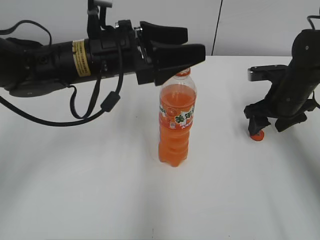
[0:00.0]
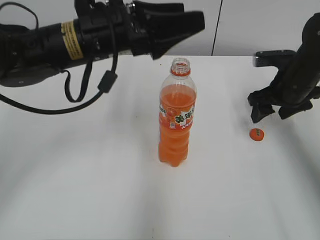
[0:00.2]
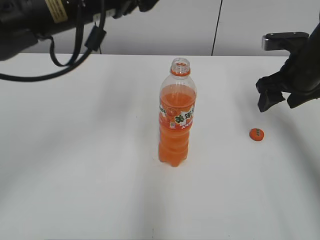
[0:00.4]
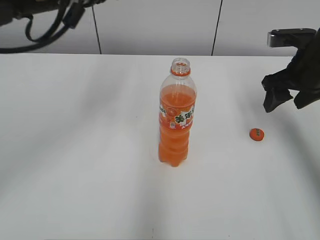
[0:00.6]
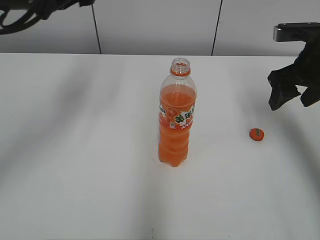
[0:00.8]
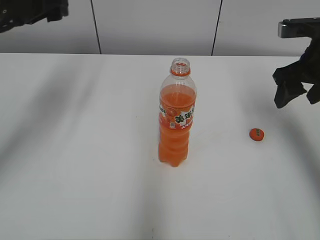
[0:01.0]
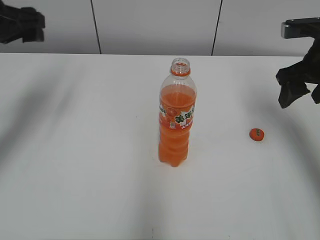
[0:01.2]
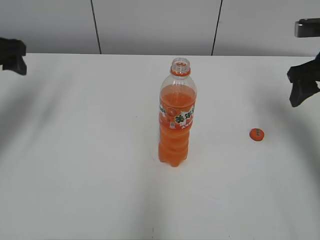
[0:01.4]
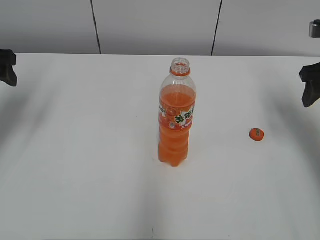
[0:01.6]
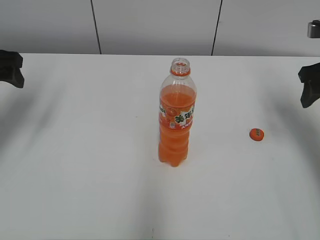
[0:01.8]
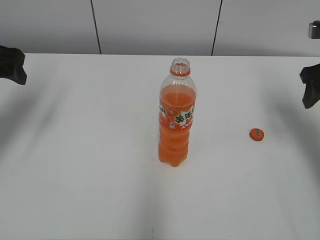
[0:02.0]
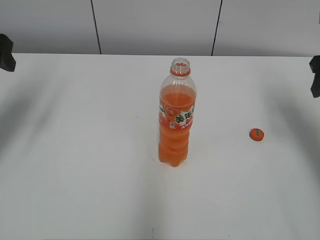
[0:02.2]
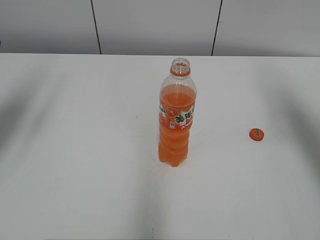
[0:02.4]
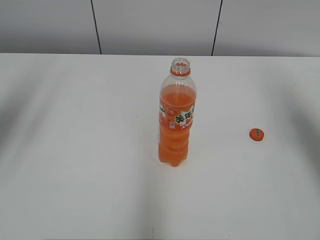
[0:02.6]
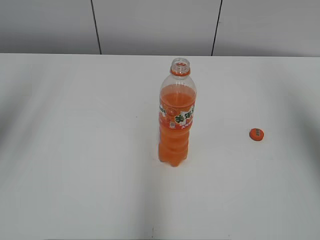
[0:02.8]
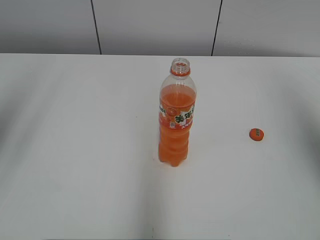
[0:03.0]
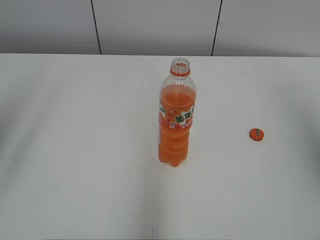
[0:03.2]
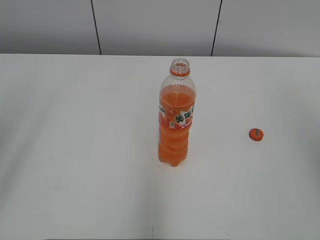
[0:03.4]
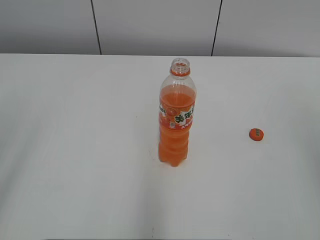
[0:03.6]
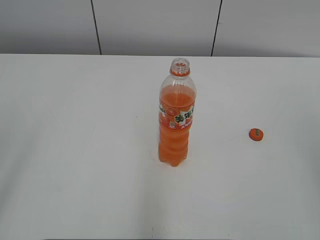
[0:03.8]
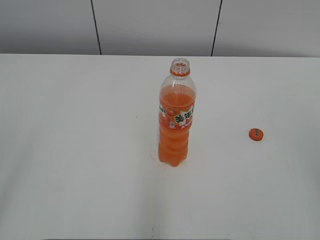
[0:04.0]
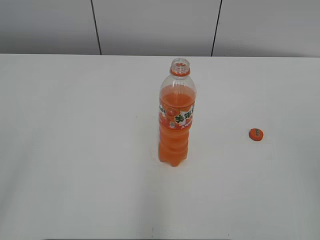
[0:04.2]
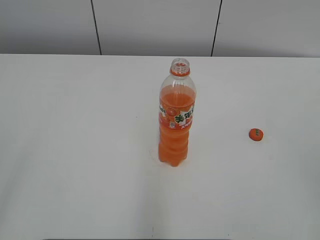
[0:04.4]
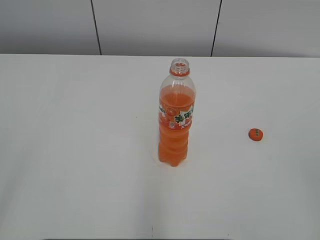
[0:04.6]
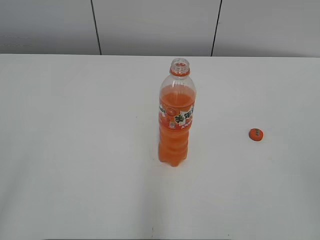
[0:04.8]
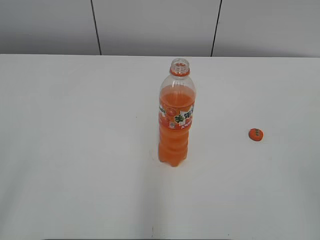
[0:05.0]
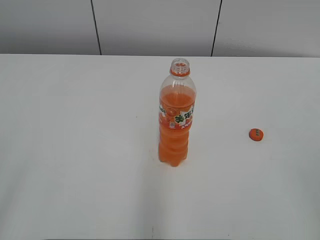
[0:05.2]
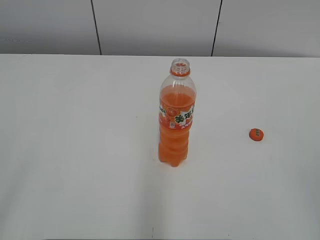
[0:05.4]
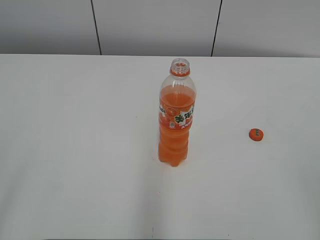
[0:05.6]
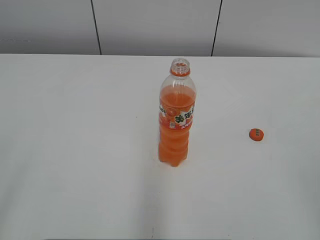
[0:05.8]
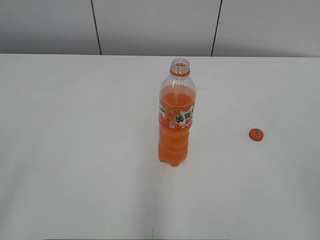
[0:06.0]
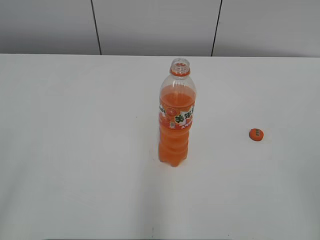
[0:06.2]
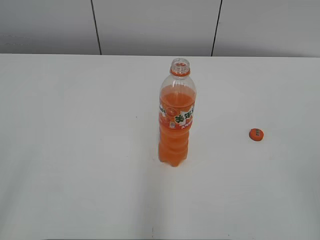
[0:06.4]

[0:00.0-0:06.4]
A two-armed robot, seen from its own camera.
0:00.0 to 0:01.6: The right gripper moves upward, roughly 10 cm, while the left gripper travels to the left by approximately 25 cm.
0:01.6 to 0:03.2: The grippers both shift backward and upward by some 25 cm.
0:03.2 to 0:04.8: The right gripper shifts about 20 cm backward and downward.

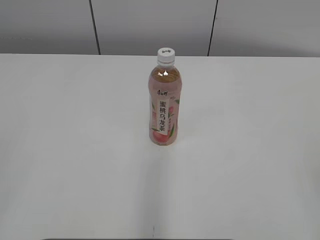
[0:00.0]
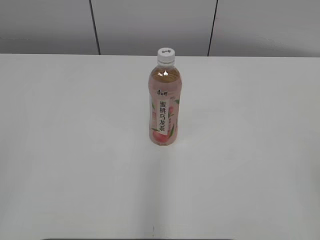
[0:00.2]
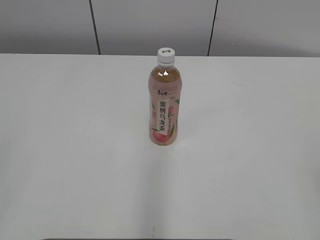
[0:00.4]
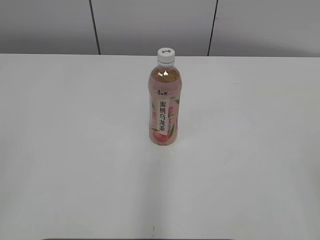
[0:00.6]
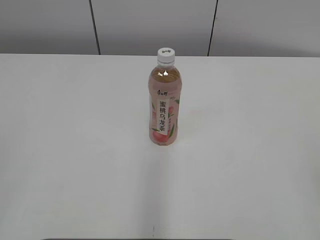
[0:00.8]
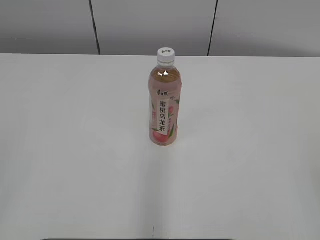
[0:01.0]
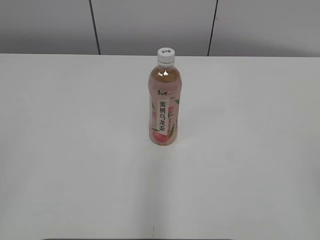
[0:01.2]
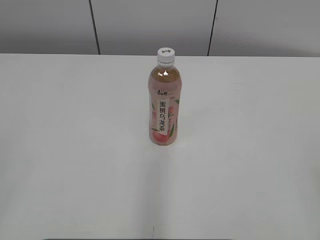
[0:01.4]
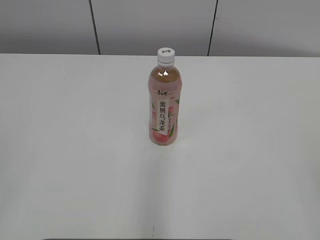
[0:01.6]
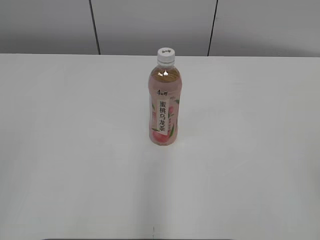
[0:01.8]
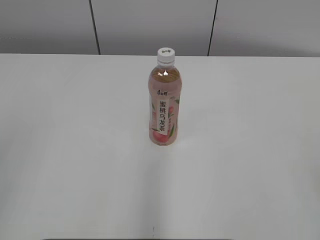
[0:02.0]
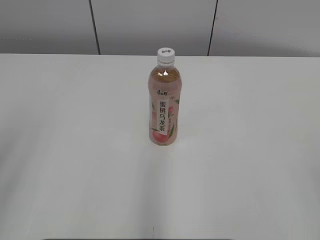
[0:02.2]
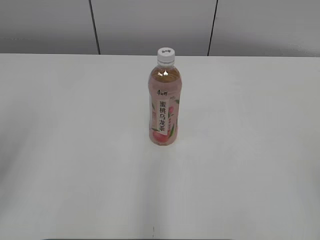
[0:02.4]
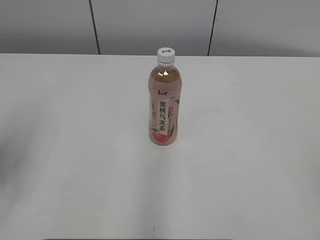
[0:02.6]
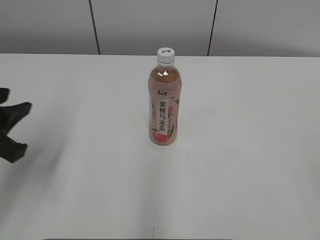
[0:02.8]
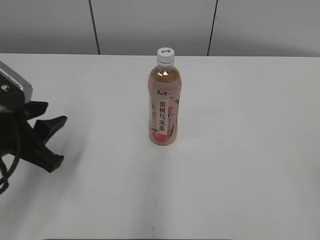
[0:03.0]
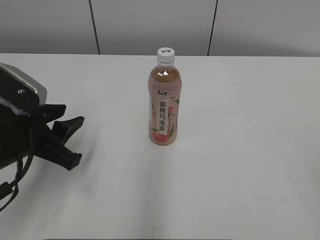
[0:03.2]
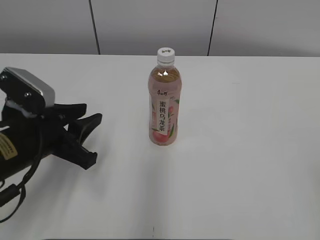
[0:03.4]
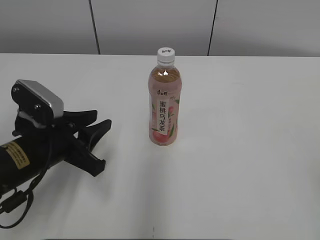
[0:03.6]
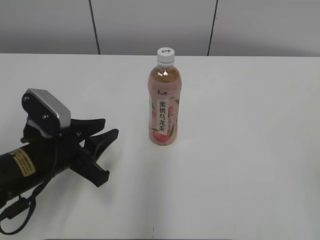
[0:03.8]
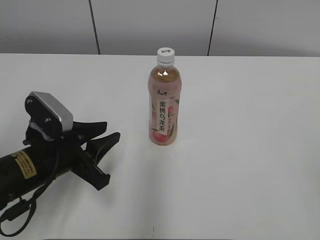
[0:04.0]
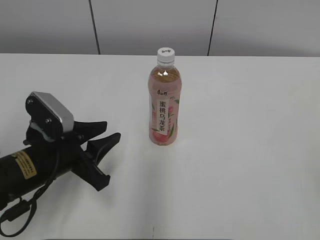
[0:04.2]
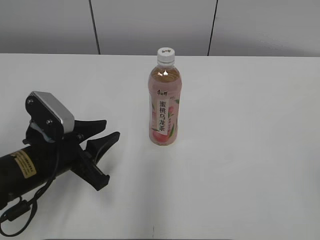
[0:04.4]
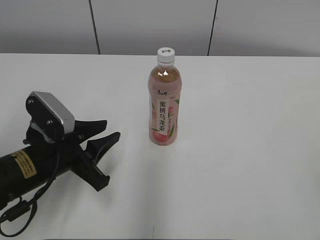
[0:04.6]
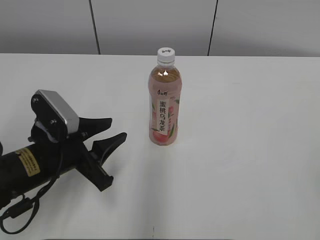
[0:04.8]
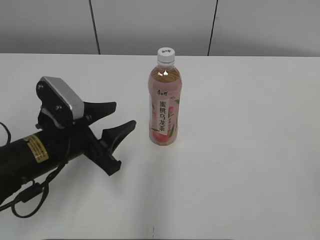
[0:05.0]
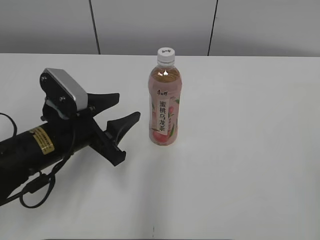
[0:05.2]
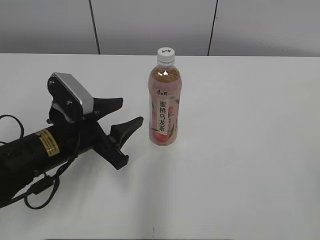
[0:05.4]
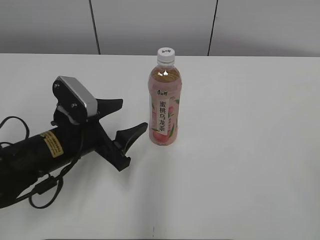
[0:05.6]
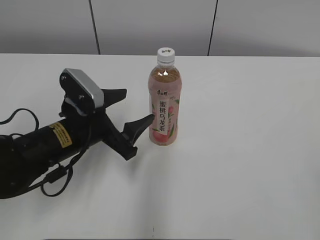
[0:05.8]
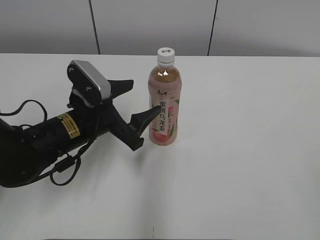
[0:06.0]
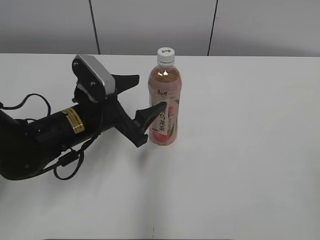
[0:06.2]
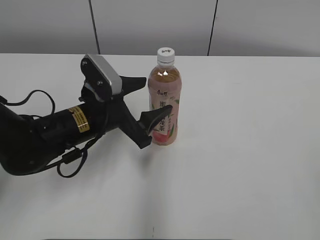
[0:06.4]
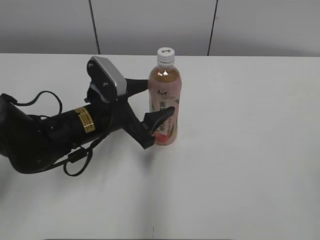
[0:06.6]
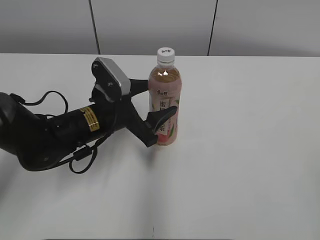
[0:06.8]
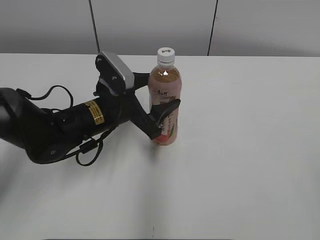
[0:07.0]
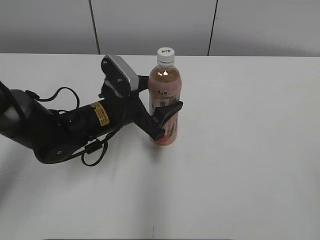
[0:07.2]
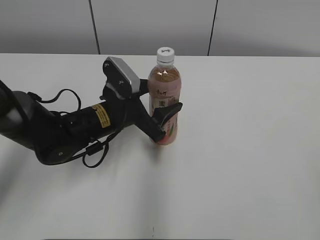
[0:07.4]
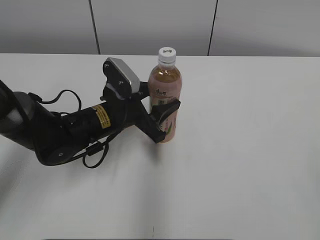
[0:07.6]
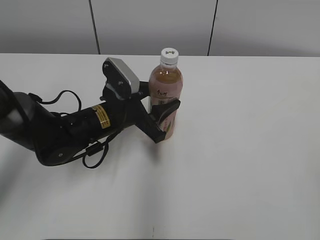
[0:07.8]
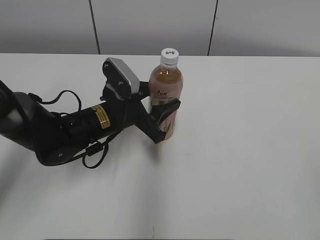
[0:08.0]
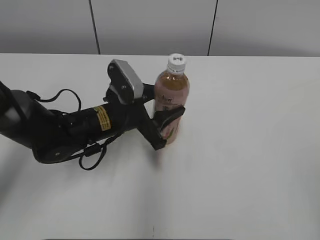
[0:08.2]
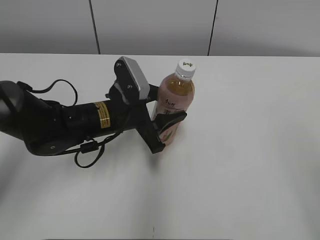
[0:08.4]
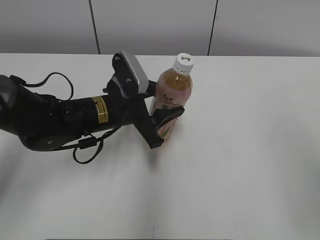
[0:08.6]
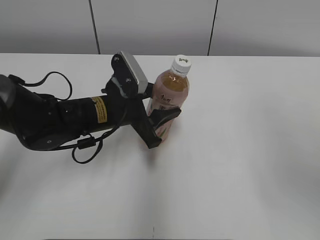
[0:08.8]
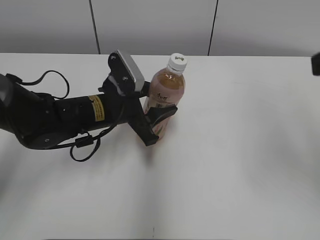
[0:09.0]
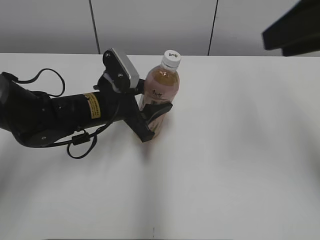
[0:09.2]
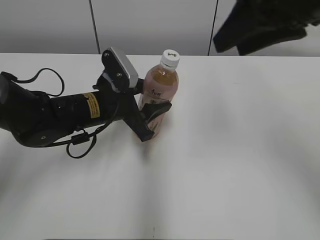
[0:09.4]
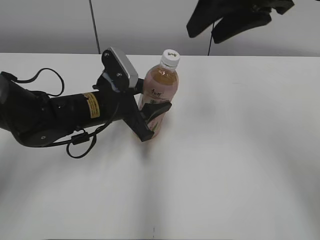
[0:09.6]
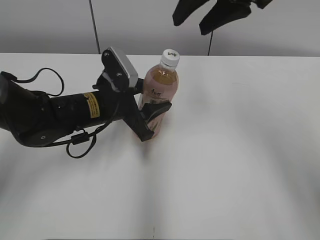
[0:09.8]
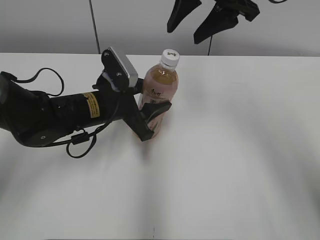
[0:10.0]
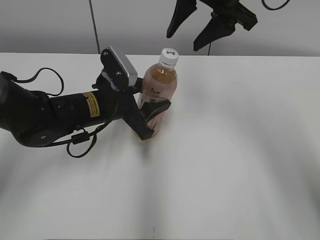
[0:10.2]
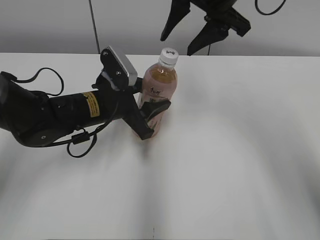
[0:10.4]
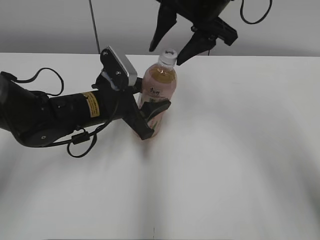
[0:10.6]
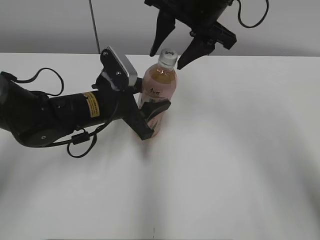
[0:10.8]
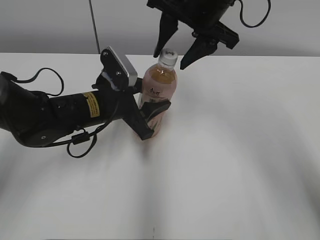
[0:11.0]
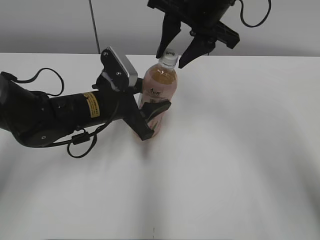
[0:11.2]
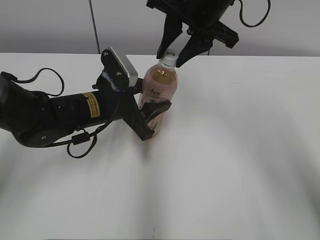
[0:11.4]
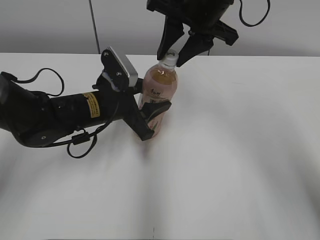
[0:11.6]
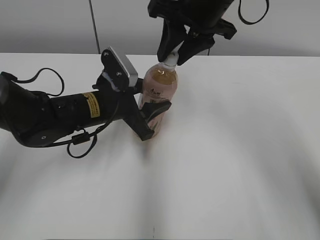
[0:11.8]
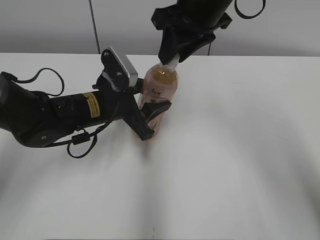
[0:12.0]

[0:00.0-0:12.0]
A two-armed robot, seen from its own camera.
Step, 0:00.0 to 0:07.4: Grab the Peach Oolong Tea with the left hand.
0:01.6 to 0:03.0: The left gripper goes about 25 cm forward, downward and to the right.
0:03.0 to 0:04.4: The left gripper moves downward, roughly 5 cm.
0:04.4 to 0:06.0: The left gripper goes about 5 cm forward, and opens its fingers.
0:06.0 to 0:07.6: The left gripper changes place by roughly 5 cm, and closes.
0:07.6 to 0:09.0: The right gripper shifts roughly 20 cm forward.
0:09.0 to 0:10.4: The right gripper shifts some 25 cm forward and to the left.
0:10.4 to 0:12.0: The right gripper closes.

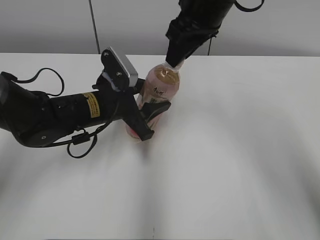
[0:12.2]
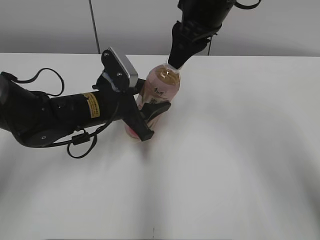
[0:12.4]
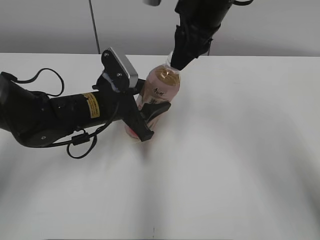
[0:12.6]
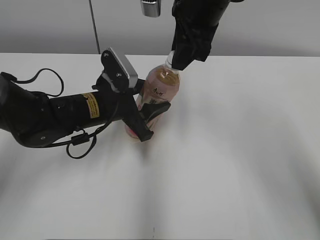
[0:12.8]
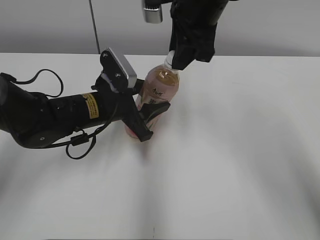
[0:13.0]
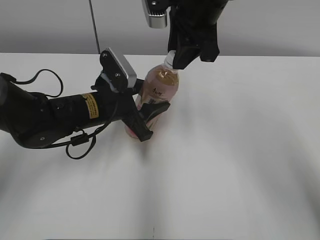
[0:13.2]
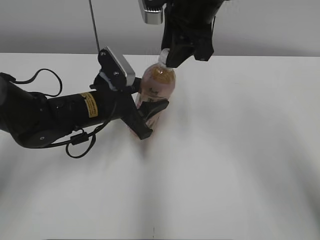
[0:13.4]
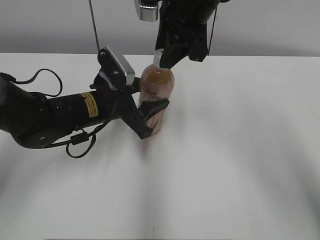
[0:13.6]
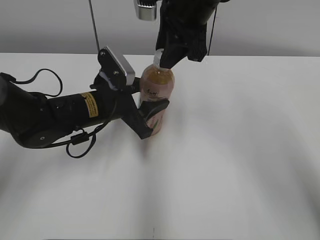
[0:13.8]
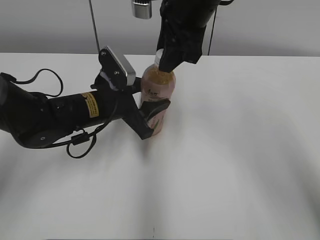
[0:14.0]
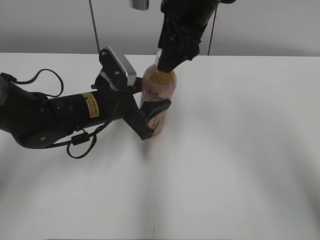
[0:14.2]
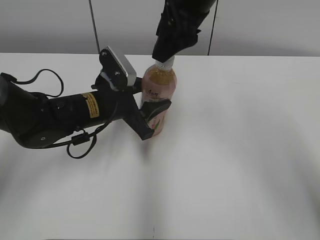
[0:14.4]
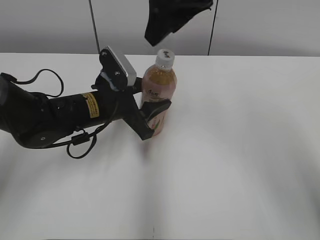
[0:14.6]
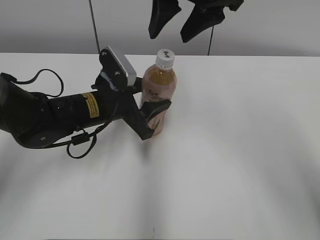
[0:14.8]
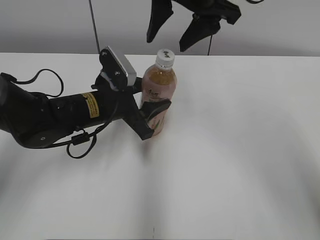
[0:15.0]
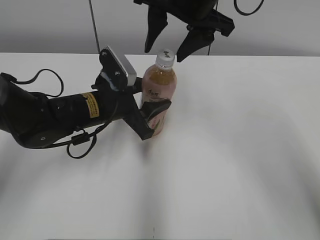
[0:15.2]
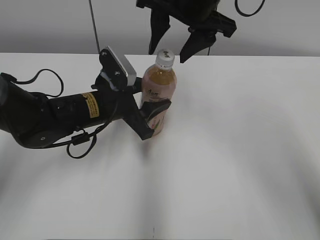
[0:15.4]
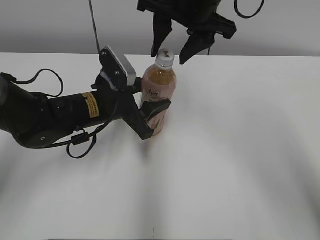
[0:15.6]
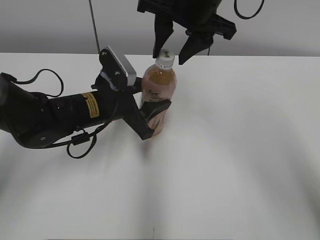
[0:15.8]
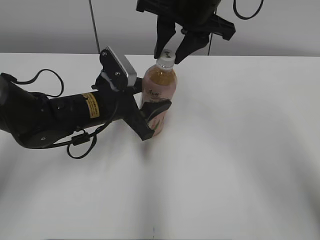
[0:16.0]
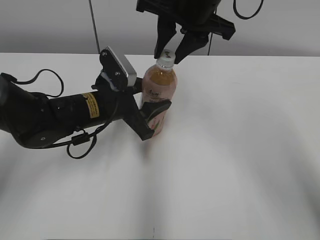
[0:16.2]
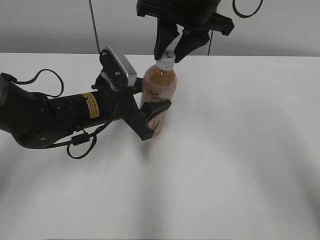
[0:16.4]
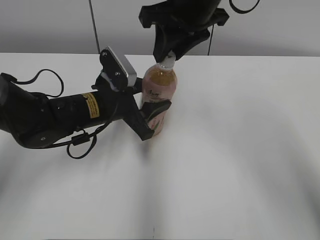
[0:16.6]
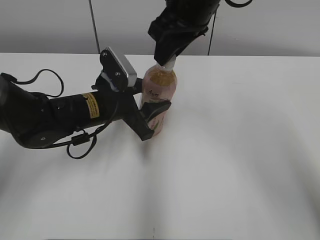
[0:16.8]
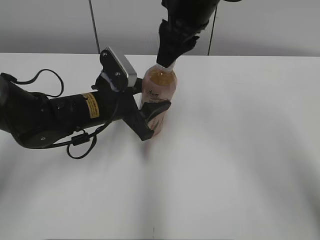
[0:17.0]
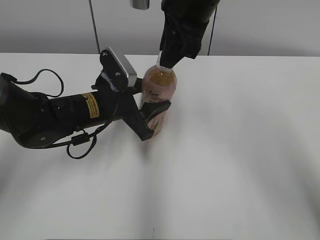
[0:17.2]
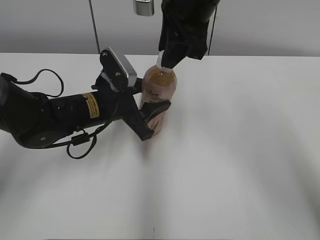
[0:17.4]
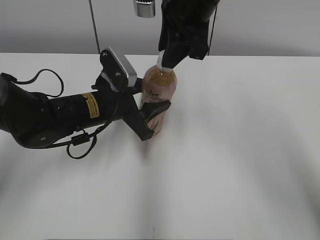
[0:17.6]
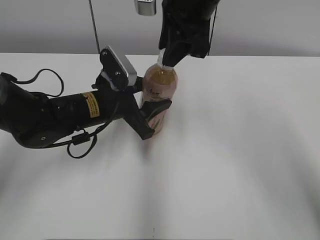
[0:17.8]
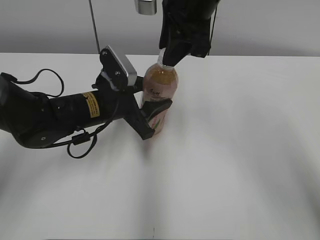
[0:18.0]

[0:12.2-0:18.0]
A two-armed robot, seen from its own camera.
0:13.6 to 0:15.0: The right gripper opens up.
0:15.0 to 0:16.6: The right gripper closes its fingers.
